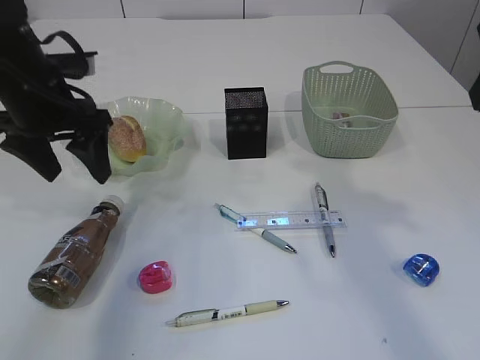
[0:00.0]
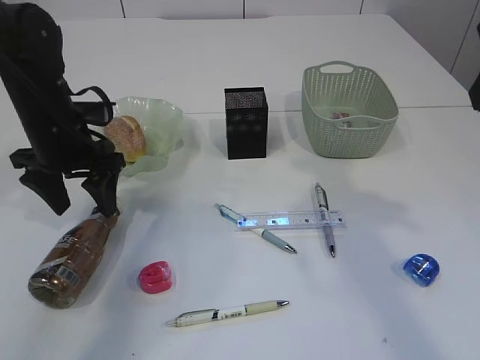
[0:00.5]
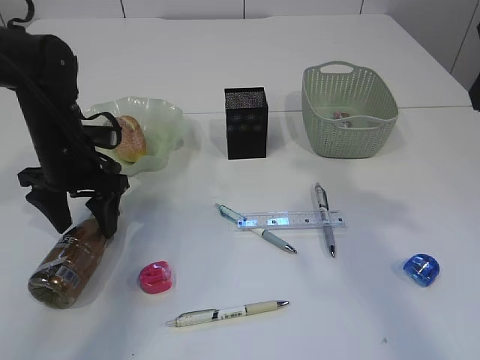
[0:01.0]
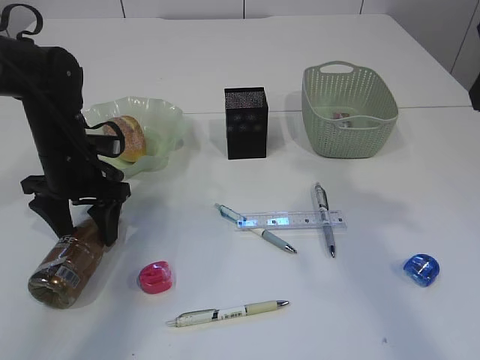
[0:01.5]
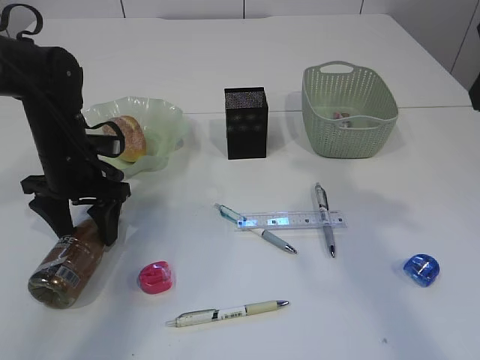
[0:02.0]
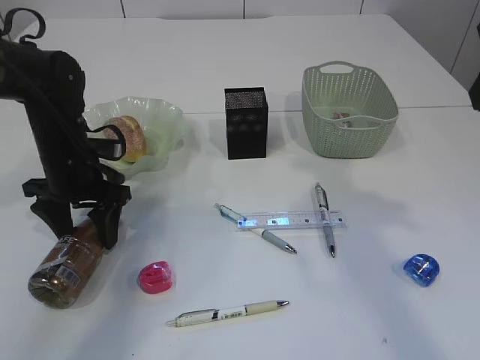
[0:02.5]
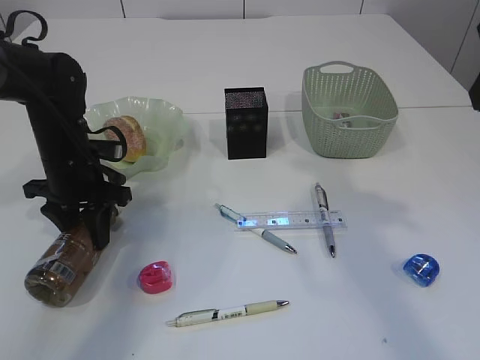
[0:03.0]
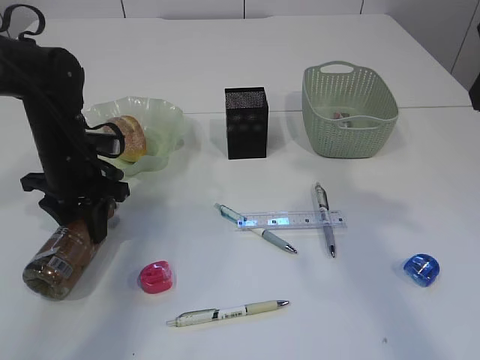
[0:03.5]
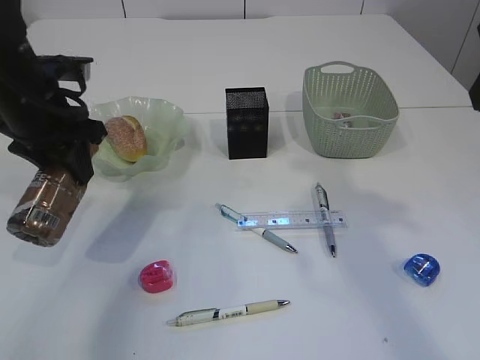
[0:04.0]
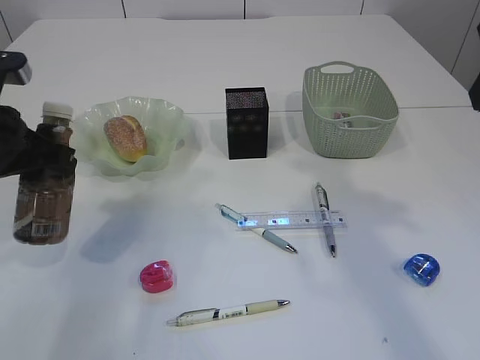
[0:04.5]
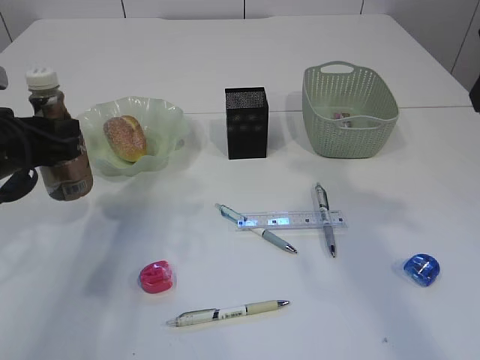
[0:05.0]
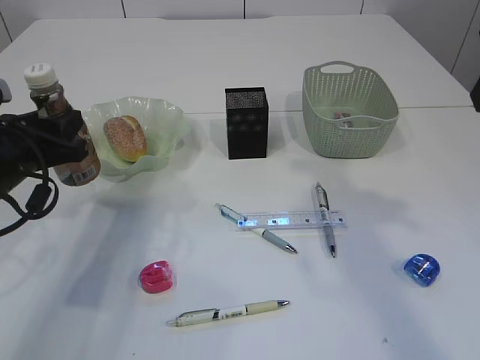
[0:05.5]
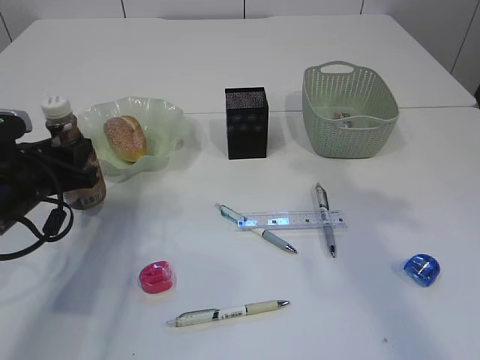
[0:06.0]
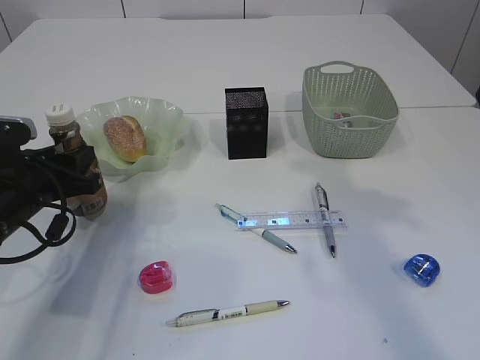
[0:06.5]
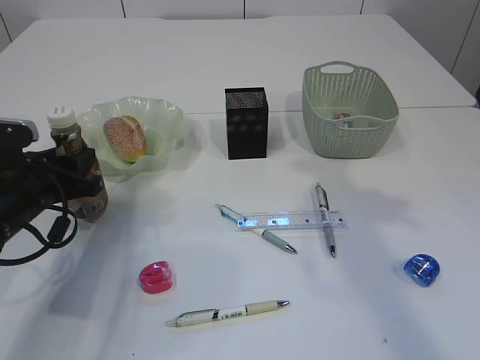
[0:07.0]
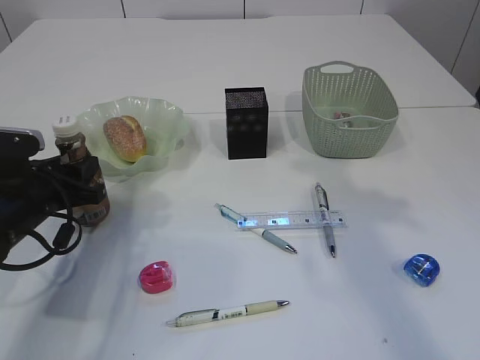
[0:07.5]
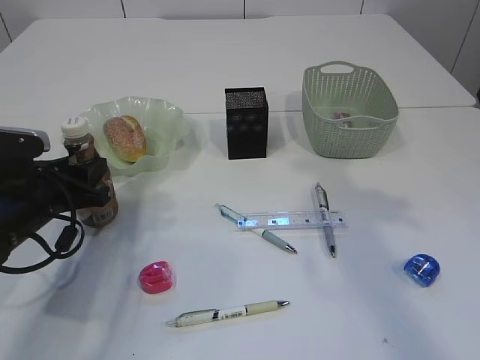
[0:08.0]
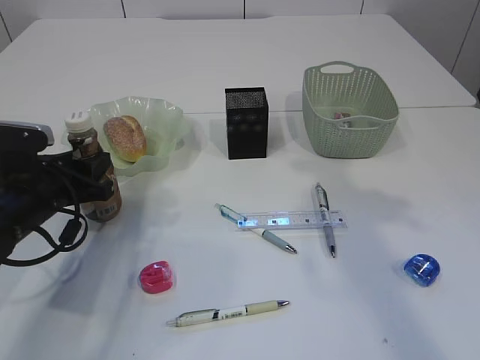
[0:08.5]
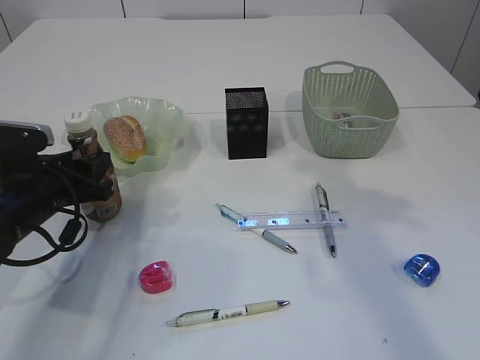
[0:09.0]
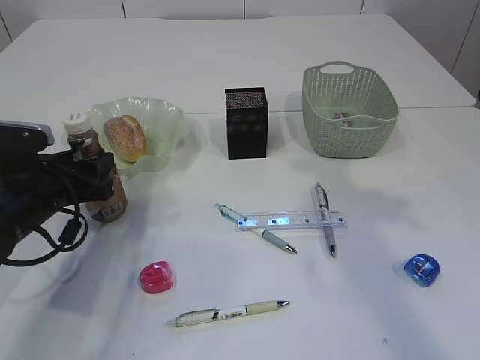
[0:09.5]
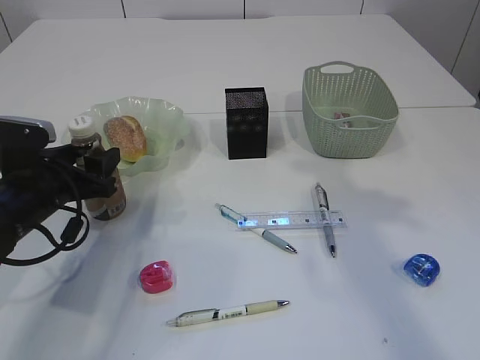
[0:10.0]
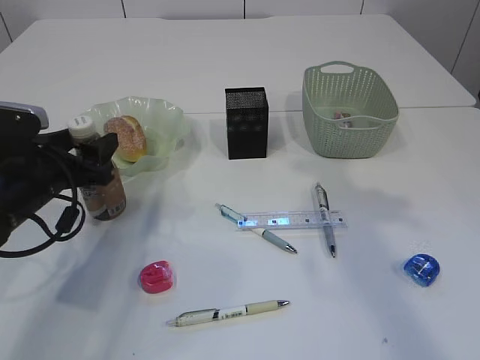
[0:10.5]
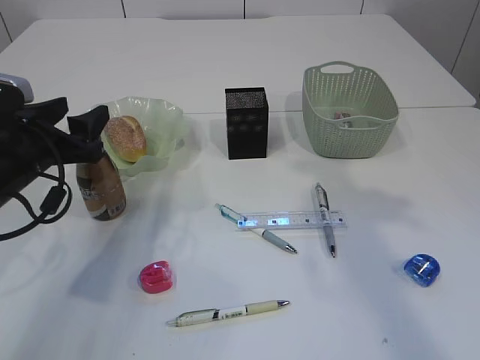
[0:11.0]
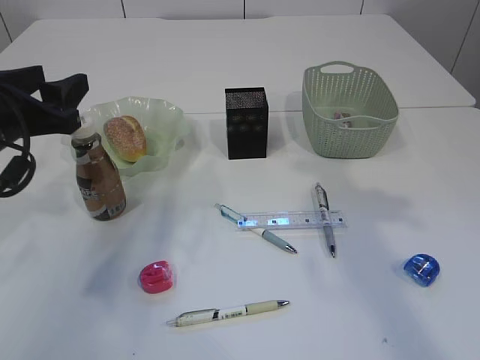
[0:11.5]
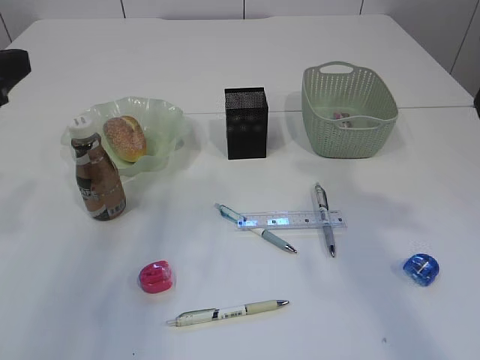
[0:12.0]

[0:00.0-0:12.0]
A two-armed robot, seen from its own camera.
Step, 0.0 to 4.0 s: Pick up the bottle with the left arm.
Step, 4.5 to 11.5 s: Place the bottle.
0.0 to 2.0 s: The left gripper goes roughly 10 cm downward.
2.0 to 4.0 s: The left gripper goes roughly 10 cm upward, and closes up.
4.0 to 6.0 s: The left gripper travels downward and backward by roughly 10 cm.
6.0 to 8.0 s: The grippers make only small movements.
8.0 to 10.0 s: The left gripper opens.
10.0 to 12.0 s: The left gripper moves upward and backward, approximately 20 cm.

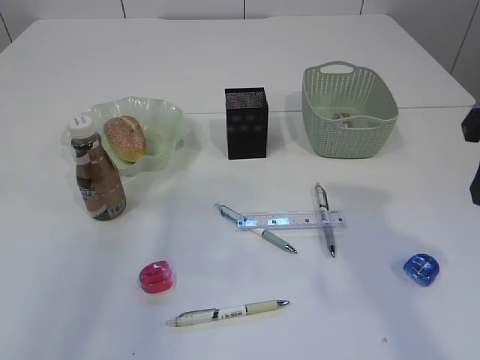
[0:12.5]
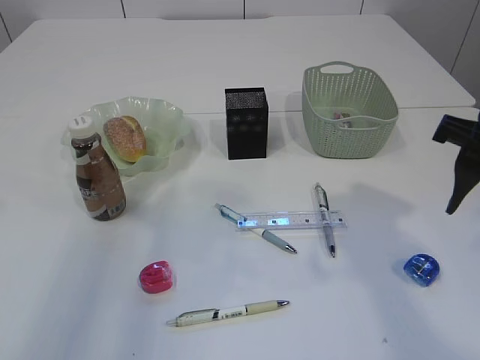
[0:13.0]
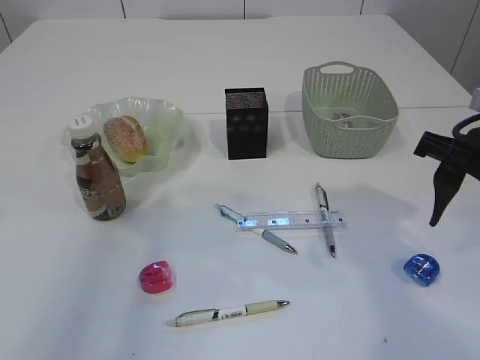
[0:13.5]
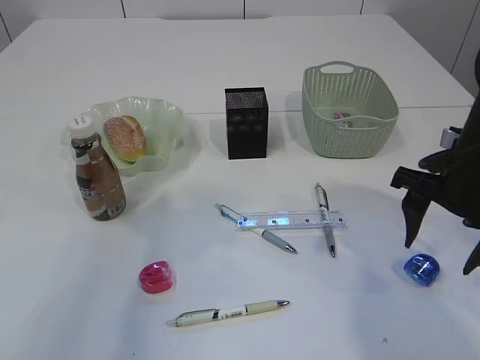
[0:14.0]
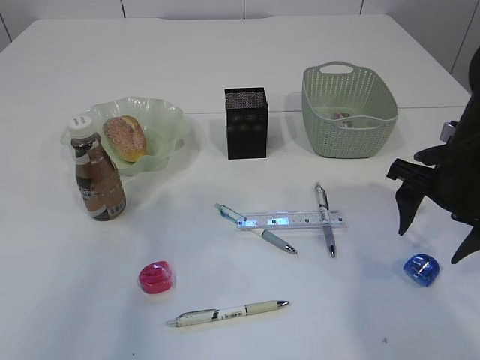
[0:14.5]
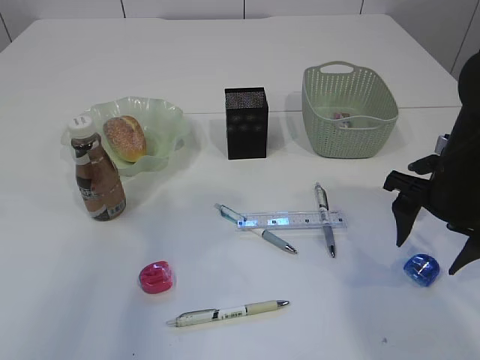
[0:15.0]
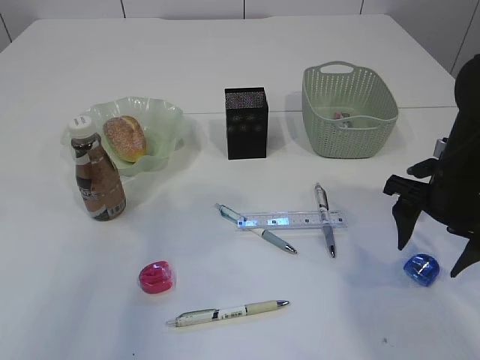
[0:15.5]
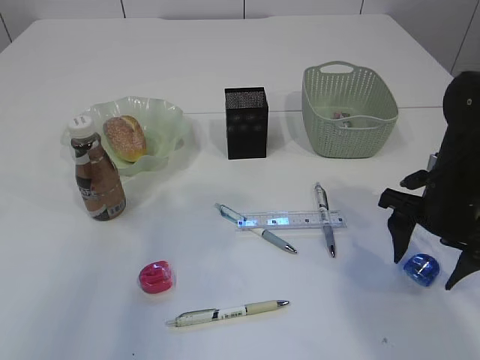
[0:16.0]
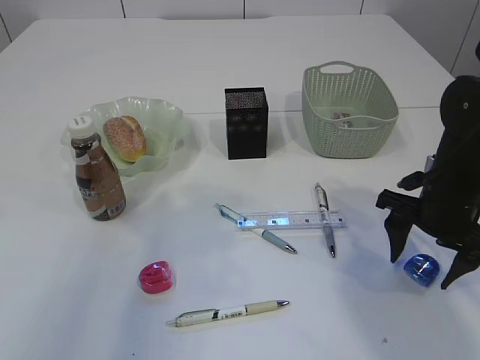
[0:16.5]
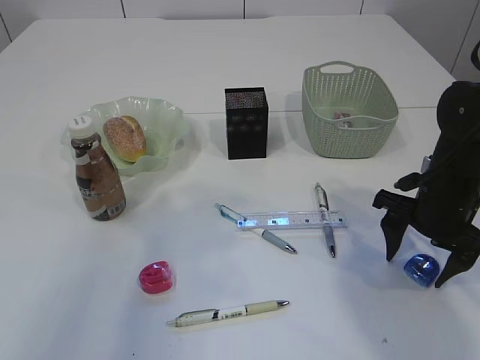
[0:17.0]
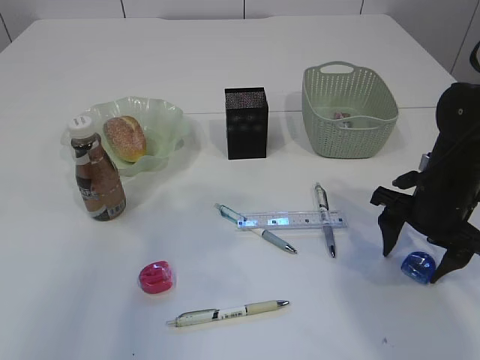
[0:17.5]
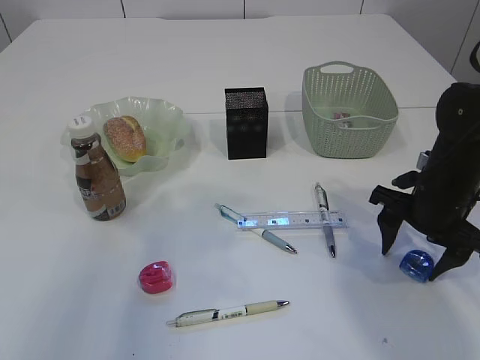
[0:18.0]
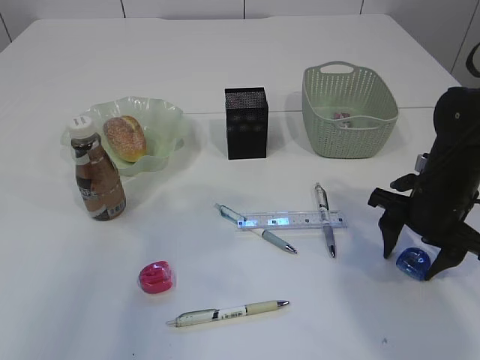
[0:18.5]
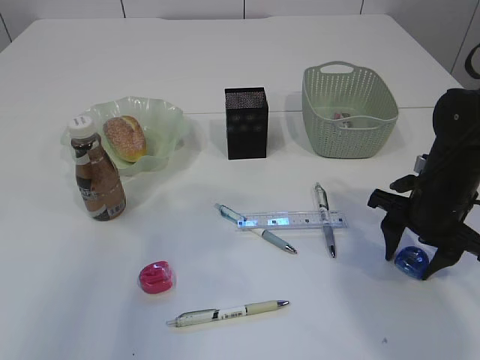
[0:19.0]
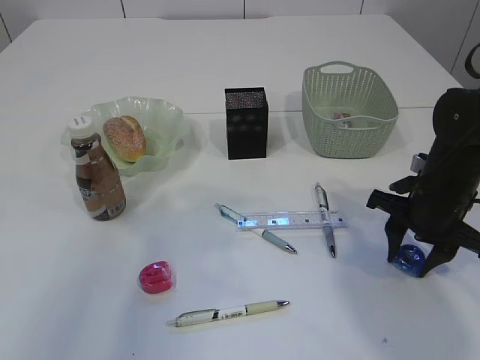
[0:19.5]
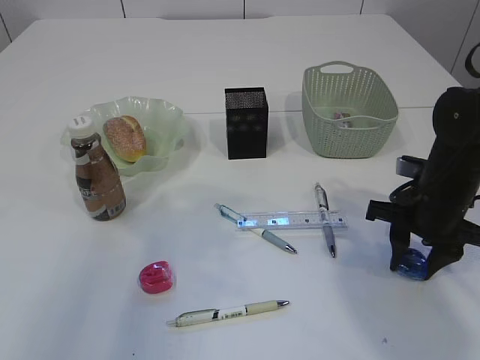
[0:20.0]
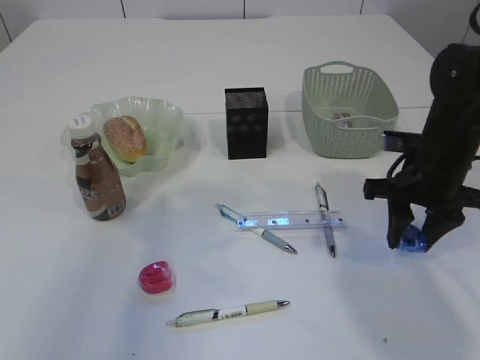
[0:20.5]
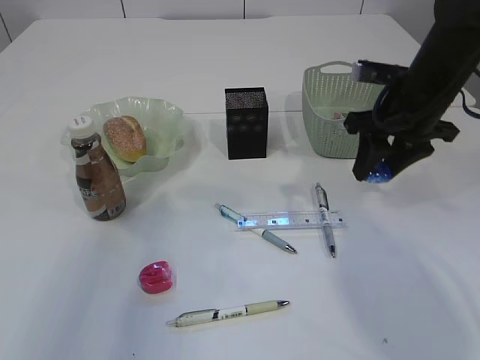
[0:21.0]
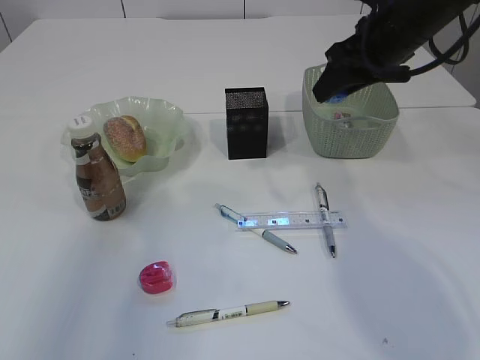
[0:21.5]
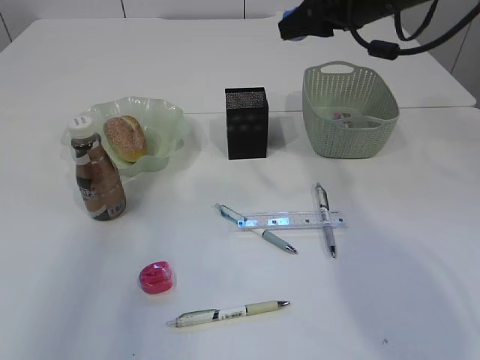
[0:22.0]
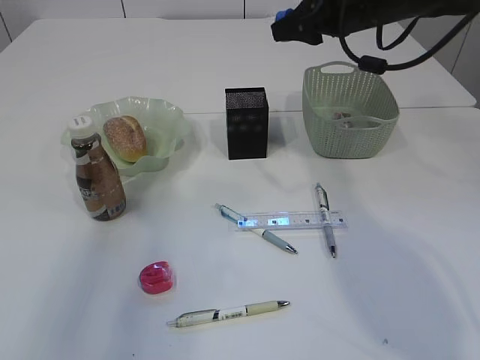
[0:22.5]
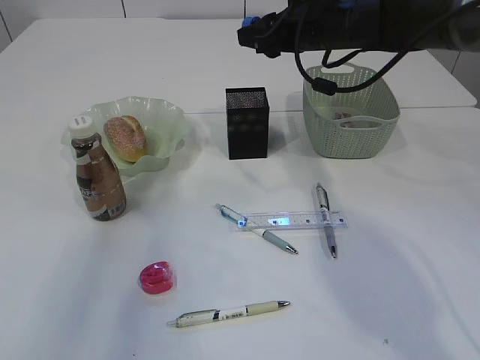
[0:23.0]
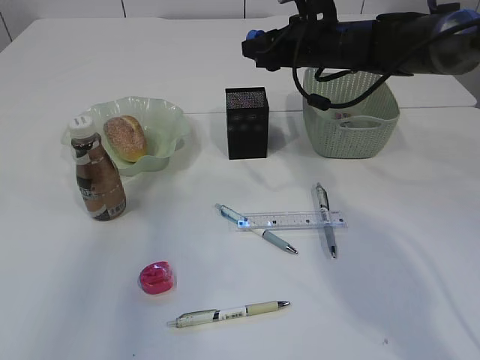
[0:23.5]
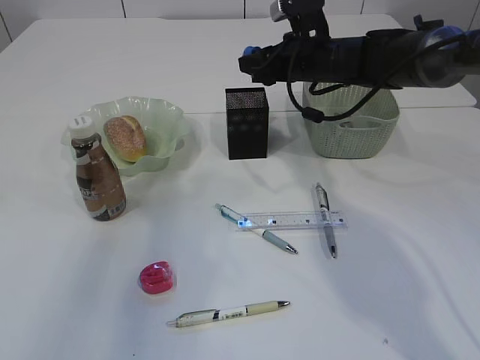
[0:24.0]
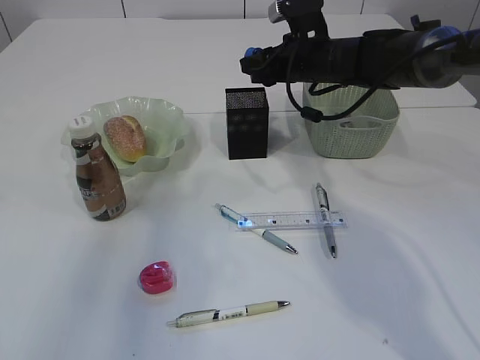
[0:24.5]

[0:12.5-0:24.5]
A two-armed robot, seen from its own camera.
Step, 12.5 to 20.5 s: Pick up the blue pencil sharpener.
12.5 to 14.5 s: The right gripper moves downward and forward, some 15 cm.
14.5 to 16.5 s: The grippers move only a little.
16.5 to 18.5 s: There are only small adjustments of the grippers.
20.5 to 22.5 s: The right gripper travels upward, forward and to the left by approximately 20 cm.
22.5 to 24.5 s: The right gripper goes about 10 cm downward.

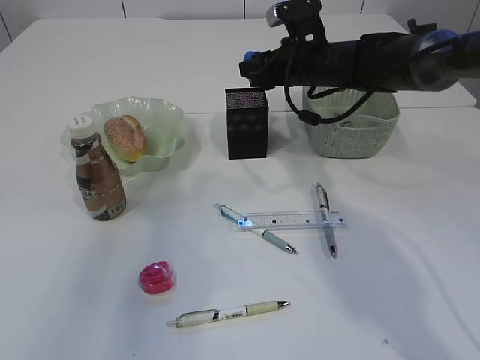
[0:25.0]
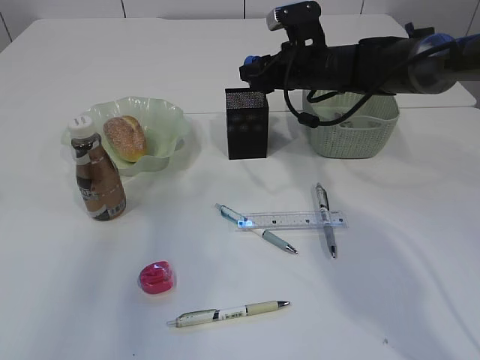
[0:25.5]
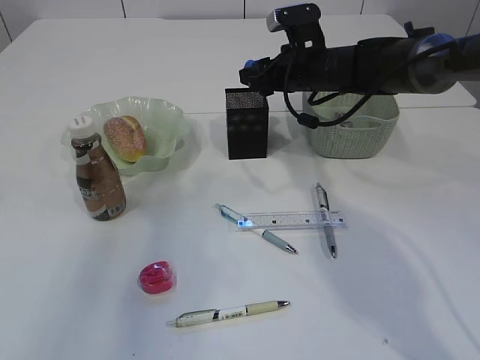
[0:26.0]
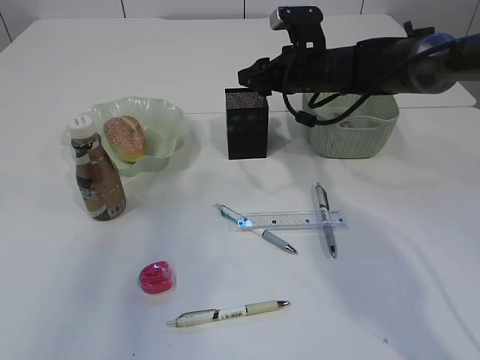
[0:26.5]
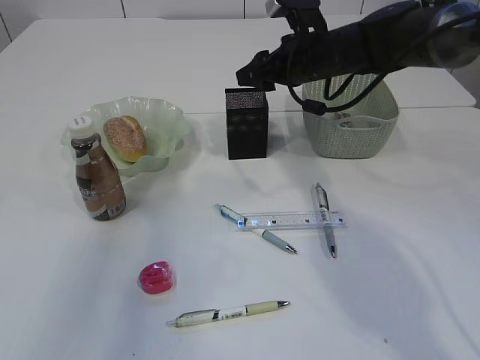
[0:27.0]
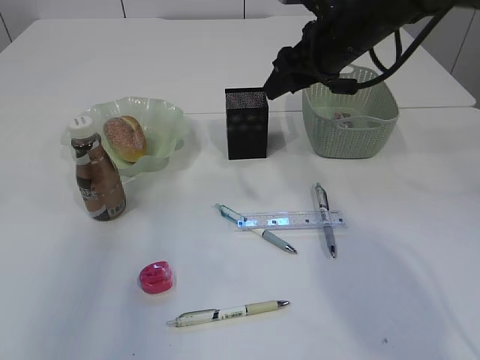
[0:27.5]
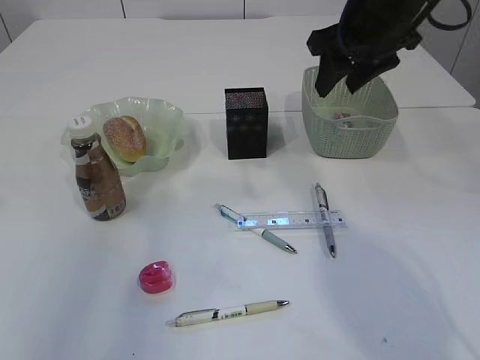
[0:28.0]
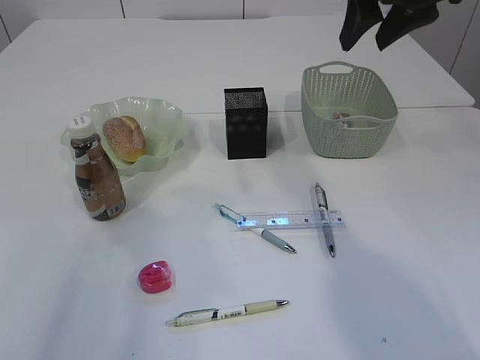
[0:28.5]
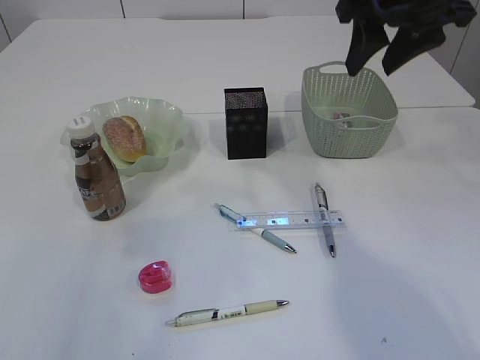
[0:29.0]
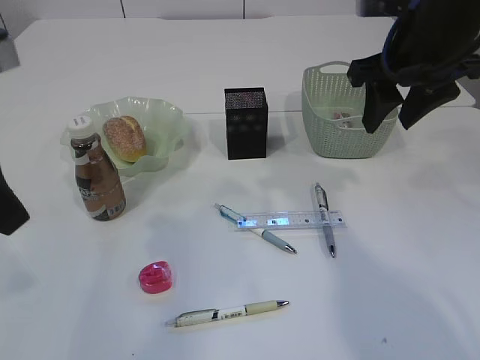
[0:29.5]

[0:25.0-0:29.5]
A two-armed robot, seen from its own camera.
Step, 25.0 to 27.0 s: Place the blue pencil sharpener into the pen holder.
25.0 to 27.0 s: There are only small adjustments of the grippers.
27.0 to 29.5 s: The left gripper shifts by about 5 cm; the right gripper shifts about 15 cm backward, upward and to the right.
